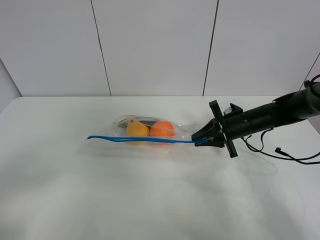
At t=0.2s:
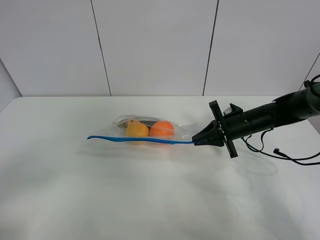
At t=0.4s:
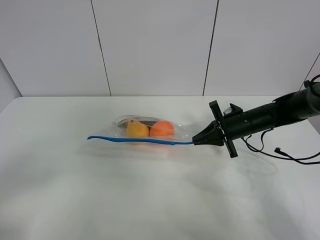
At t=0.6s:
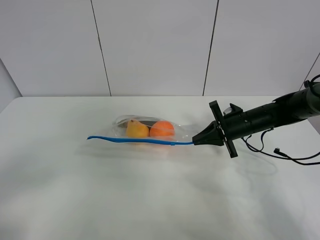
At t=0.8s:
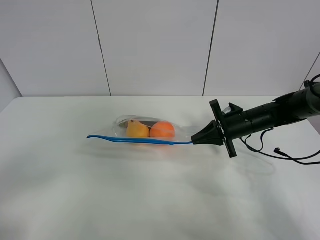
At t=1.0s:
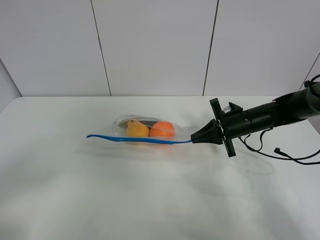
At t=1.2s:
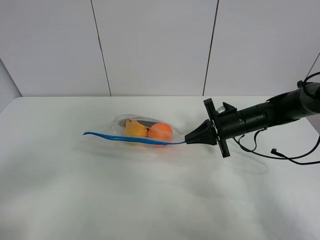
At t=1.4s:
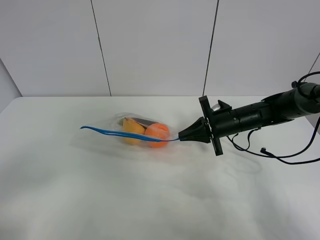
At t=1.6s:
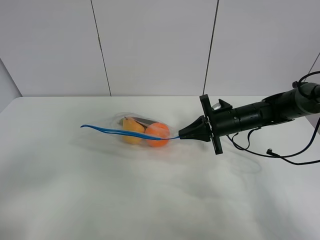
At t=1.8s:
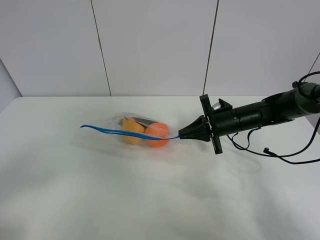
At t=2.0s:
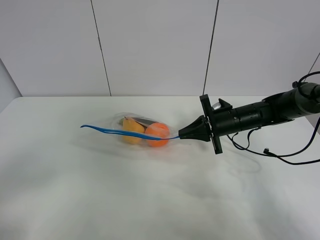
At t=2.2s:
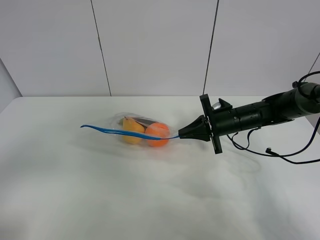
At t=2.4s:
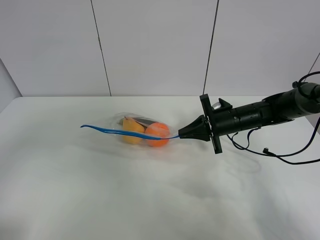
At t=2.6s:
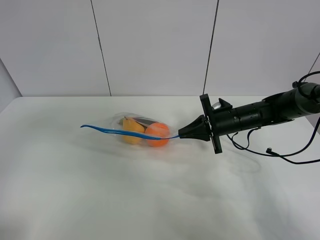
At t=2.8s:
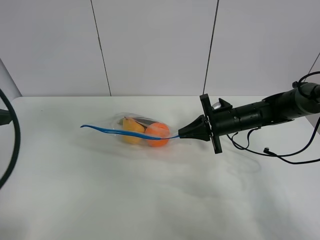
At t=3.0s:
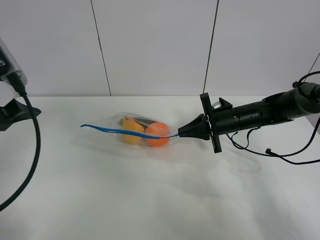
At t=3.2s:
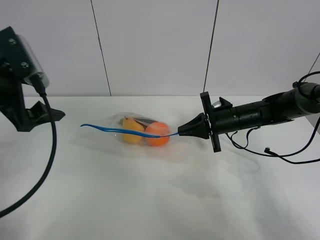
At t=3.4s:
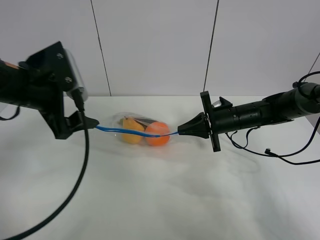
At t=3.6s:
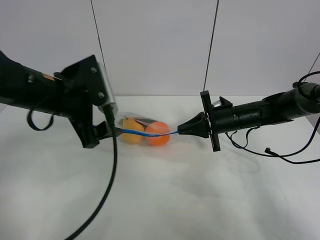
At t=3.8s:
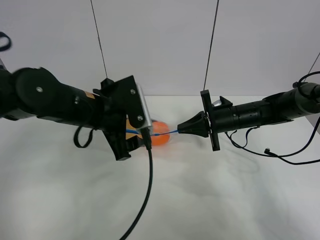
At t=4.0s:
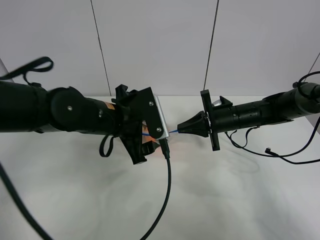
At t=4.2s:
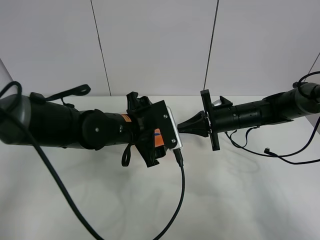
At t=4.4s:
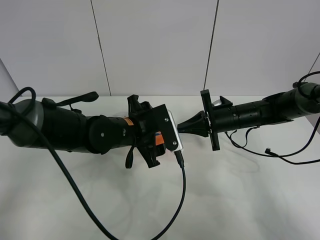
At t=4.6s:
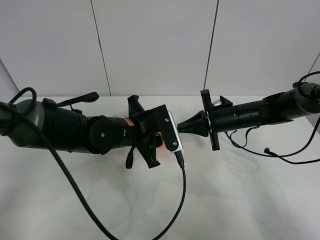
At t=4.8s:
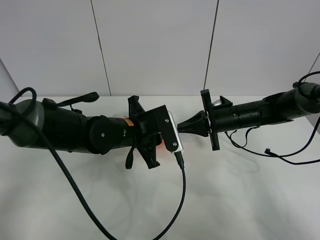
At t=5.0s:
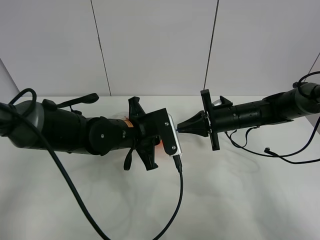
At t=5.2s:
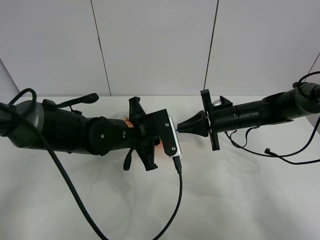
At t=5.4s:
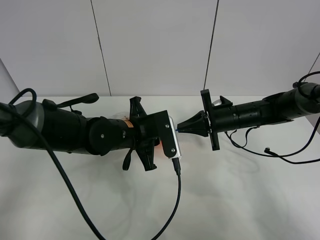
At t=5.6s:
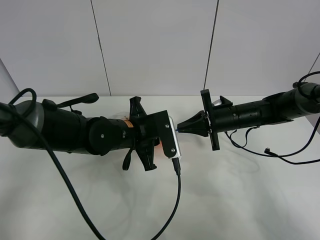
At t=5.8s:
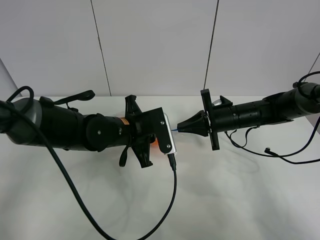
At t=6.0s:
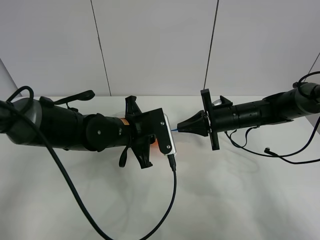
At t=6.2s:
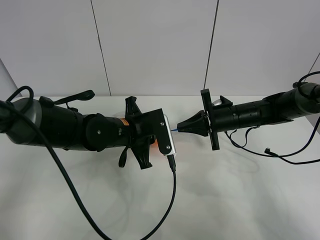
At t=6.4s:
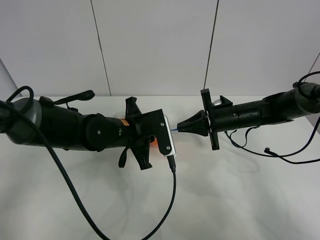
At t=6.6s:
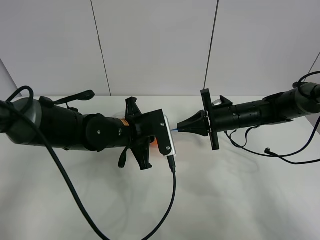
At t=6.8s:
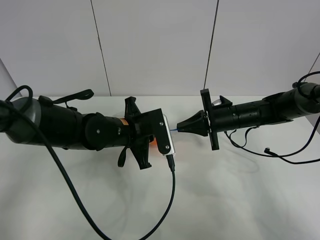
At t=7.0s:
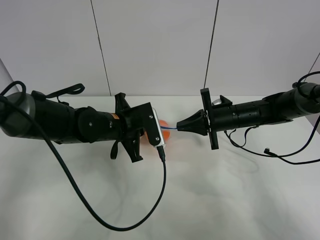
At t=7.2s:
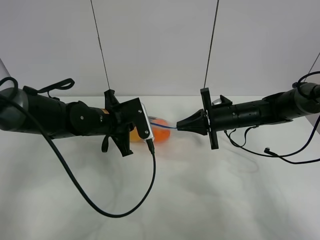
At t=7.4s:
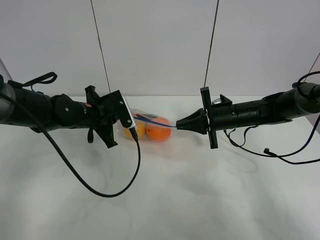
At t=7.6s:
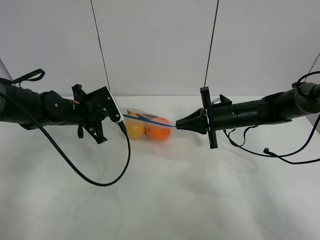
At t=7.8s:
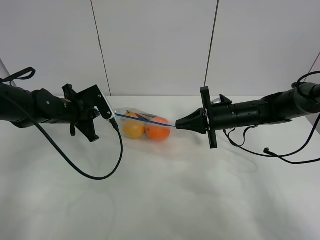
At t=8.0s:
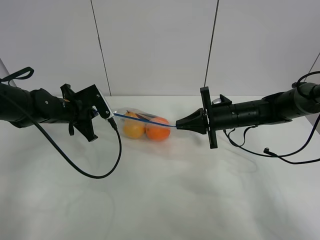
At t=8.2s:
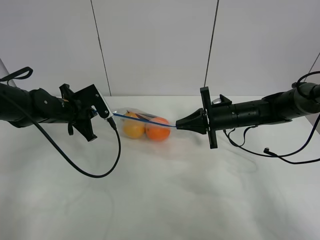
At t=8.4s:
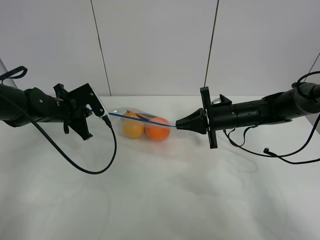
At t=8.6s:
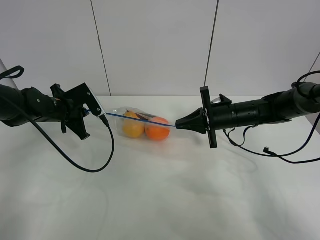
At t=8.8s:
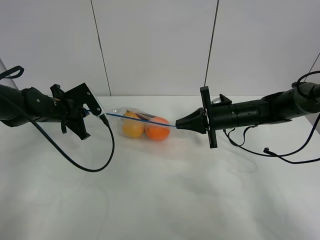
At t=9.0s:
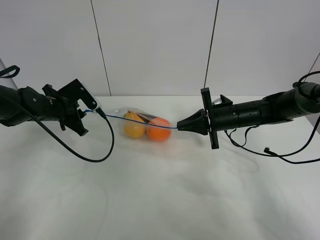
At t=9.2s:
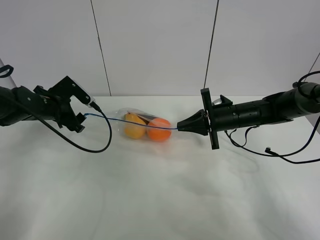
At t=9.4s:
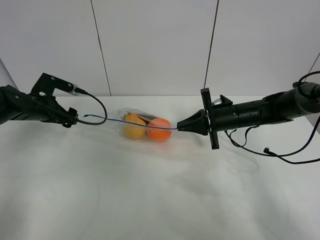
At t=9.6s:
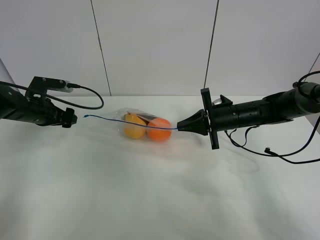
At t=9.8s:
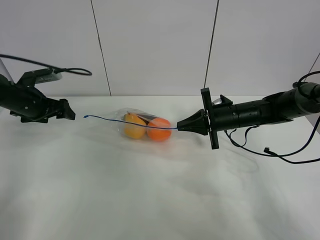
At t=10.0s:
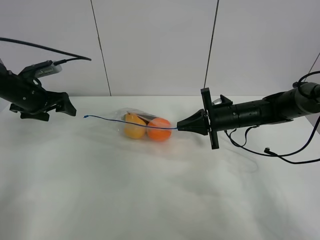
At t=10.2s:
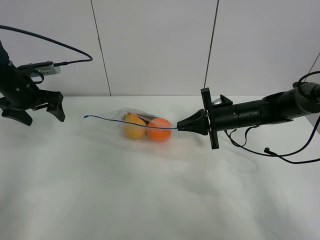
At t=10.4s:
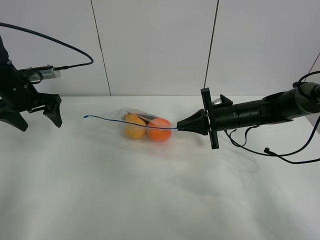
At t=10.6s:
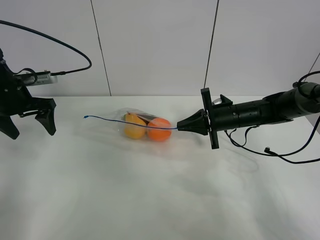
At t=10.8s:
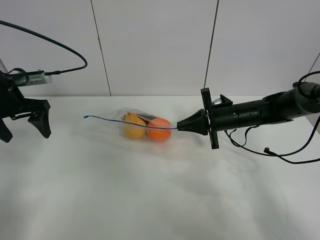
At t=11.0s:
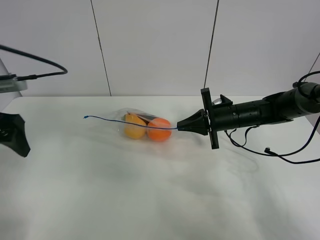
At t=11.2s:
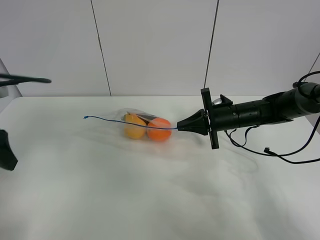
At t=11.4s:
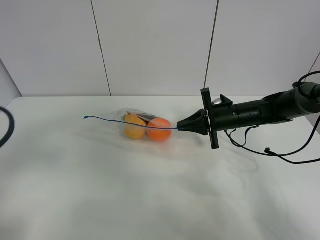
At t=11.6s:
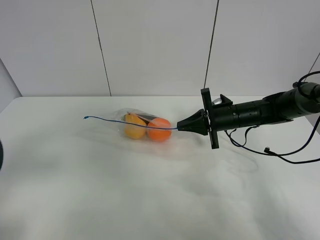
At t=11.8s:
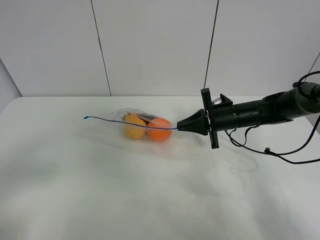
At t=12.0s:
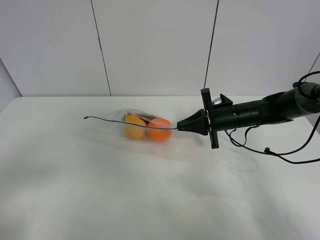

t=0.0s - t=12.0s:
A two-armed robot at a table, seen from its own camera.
Step, t=0.6s - t=2.2s: Lift the fruit bag with your right gripper.
Step, t=2.4s - t=9.2s: Pull the fruit bag with left gripper.
t=0.0s - t=1.6s: The grippers stay close to where they were, moving slightly.
t=1.6s - t=3.0s: The left gripper is displaced forward by approximately 25 cm.
t=3.0s - t=4.4s: The left gripper moves to the right and downward, some 25 cm.
t=4.4s - t=6.0s: The left gripper closes up.
t=6.0s - t=7.6s: The left gripper moves to the left and forward, roughly 15 cm.
t=7.6s - t=9.0s: The left gripper goes about 5 cm to the left, and opens its fingers.
t=9.0s - t=10.4s: The left gripper heads upward and to the left, covering some 10 cm, and opens up.
t=10.4s - t=12.0s: The left gripper travels backward by roughly 35 cm.

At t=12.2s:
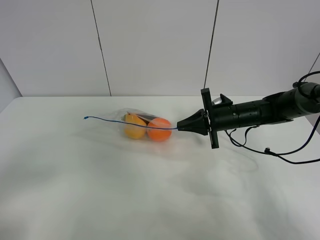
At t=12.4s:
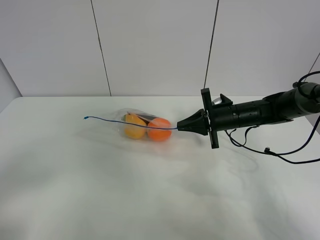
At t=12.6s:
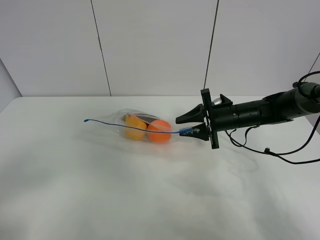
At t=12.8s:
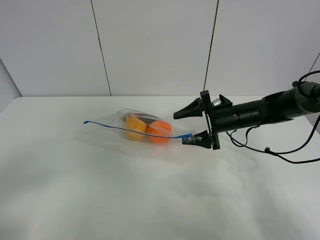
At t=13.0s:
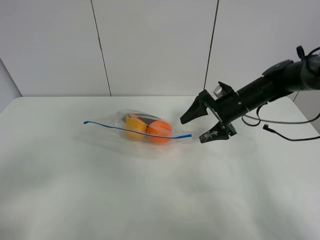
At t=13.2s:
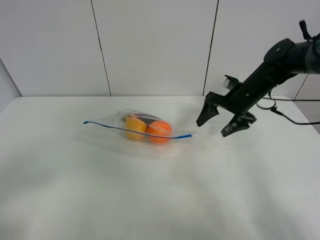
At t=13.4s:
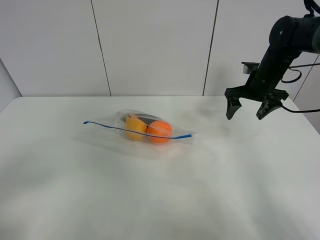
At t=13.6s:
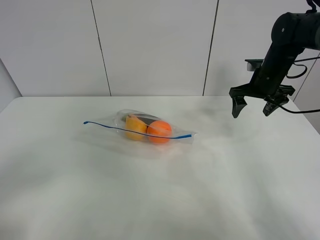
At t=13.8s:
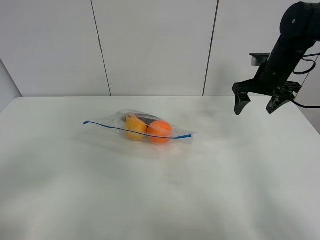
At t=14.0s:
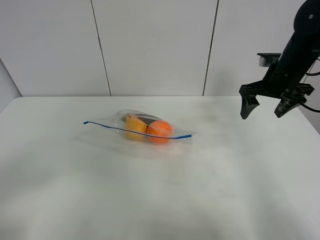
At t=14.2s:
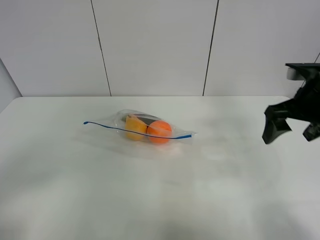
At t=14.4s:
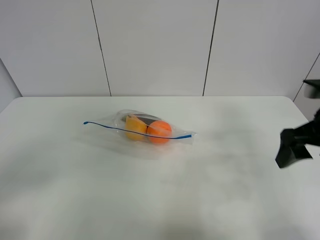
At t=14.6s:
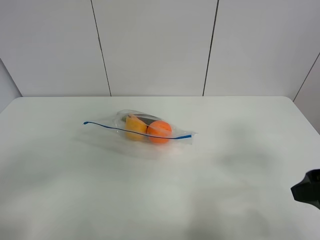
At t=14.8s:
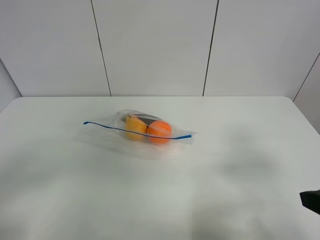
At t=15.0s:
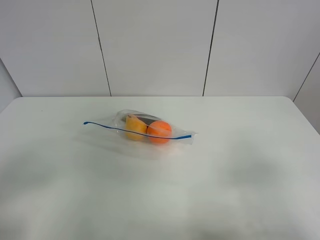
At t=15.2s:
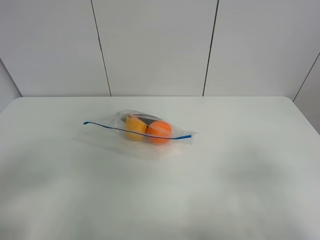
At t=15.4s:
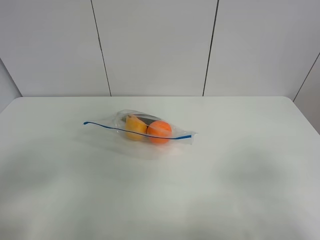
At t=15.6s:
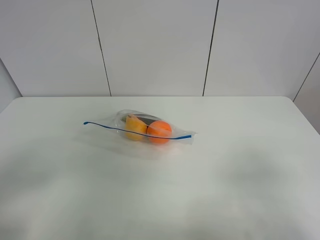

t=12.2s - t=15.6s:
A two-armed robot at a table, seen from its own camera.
t=12.2s - t=13.8s: The right gripper moves upward and to the right, approximately 15 cm, and opens its fingers.
t=13.8s - t=15.6s: The right gripper heads backward, covering some 40 cm.
